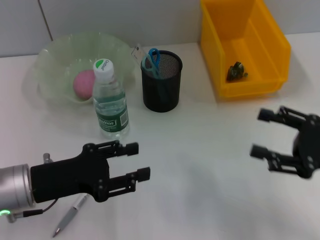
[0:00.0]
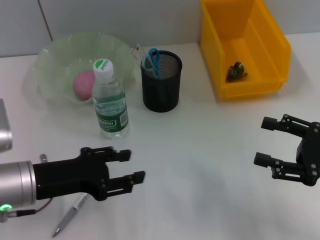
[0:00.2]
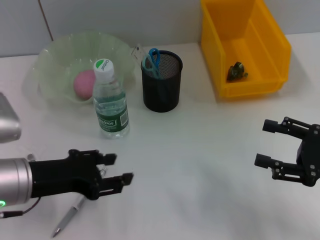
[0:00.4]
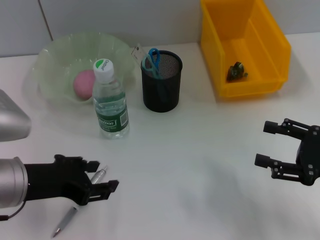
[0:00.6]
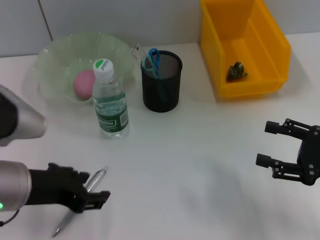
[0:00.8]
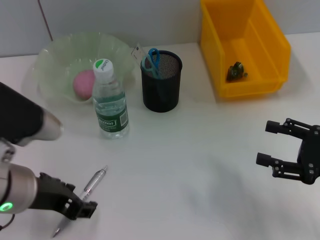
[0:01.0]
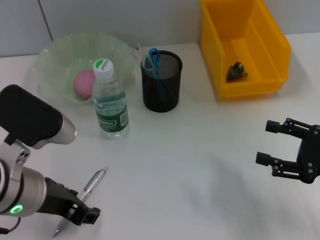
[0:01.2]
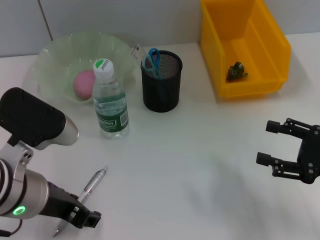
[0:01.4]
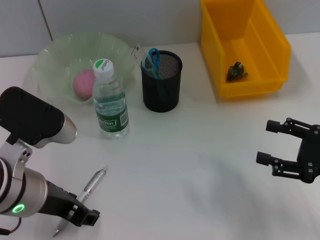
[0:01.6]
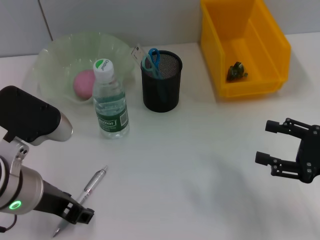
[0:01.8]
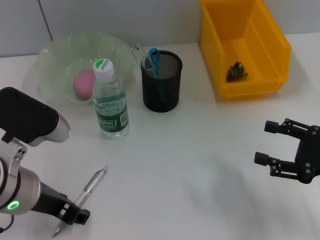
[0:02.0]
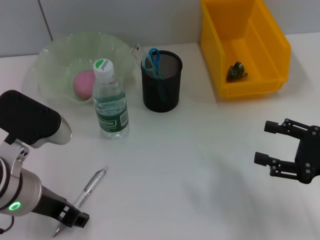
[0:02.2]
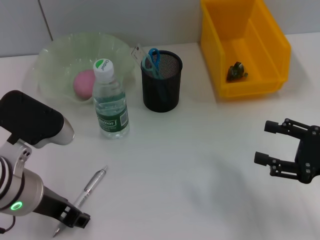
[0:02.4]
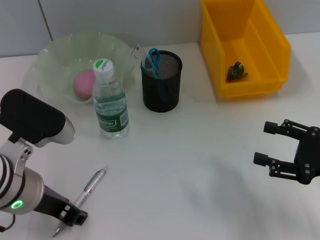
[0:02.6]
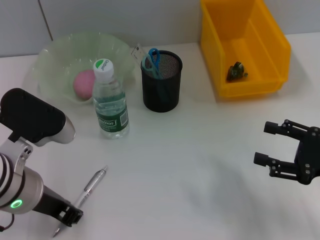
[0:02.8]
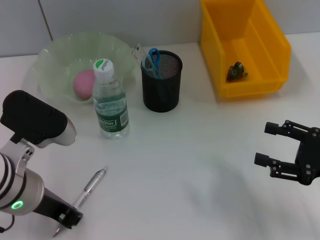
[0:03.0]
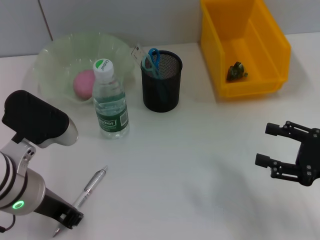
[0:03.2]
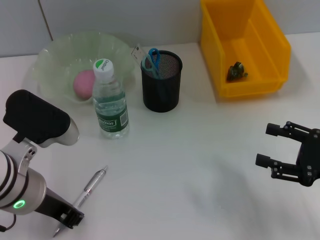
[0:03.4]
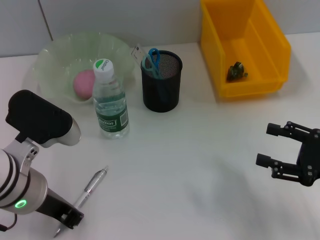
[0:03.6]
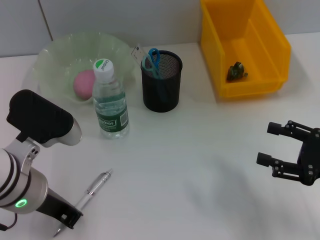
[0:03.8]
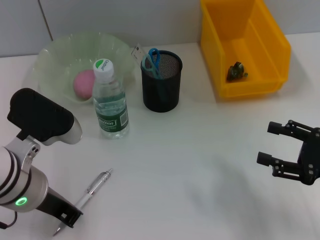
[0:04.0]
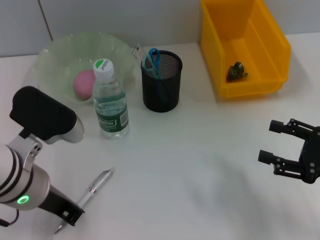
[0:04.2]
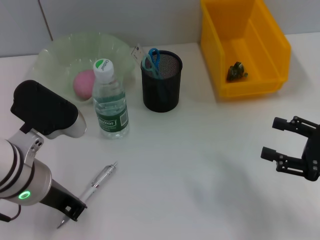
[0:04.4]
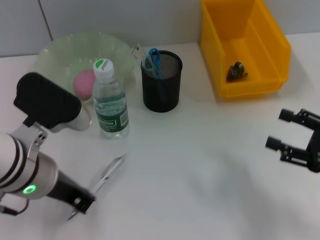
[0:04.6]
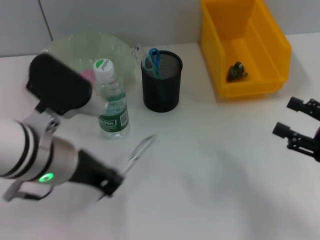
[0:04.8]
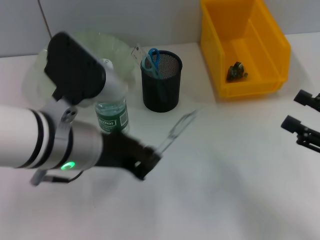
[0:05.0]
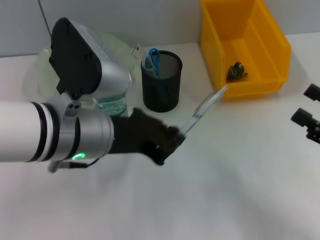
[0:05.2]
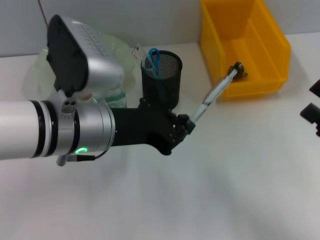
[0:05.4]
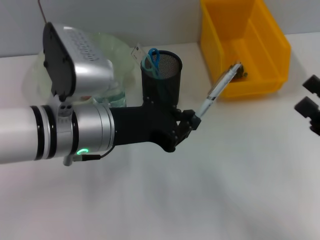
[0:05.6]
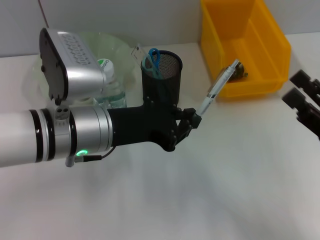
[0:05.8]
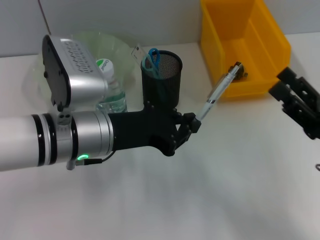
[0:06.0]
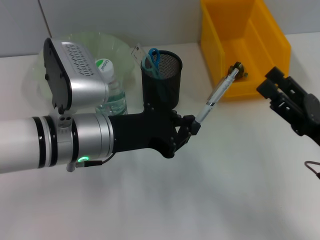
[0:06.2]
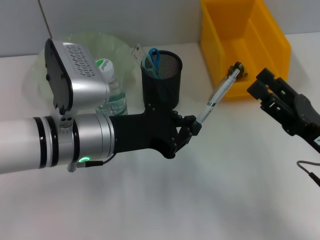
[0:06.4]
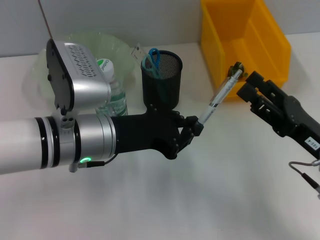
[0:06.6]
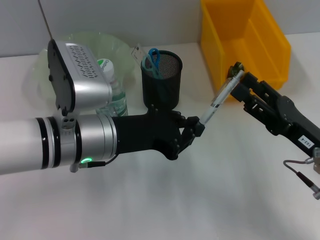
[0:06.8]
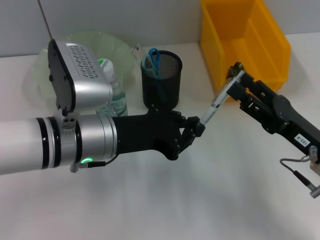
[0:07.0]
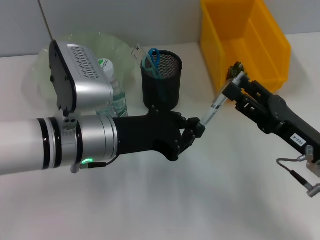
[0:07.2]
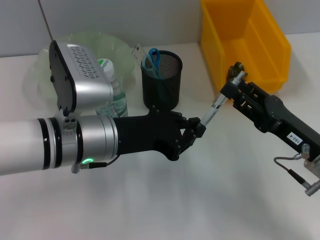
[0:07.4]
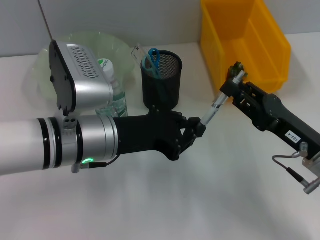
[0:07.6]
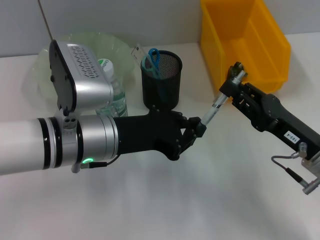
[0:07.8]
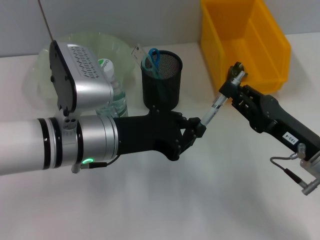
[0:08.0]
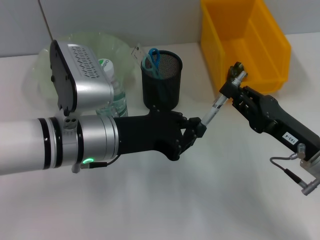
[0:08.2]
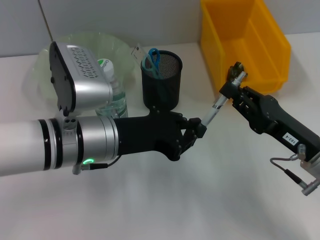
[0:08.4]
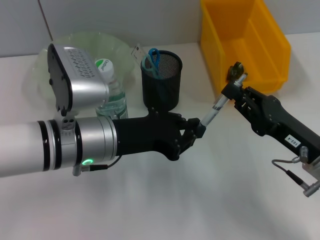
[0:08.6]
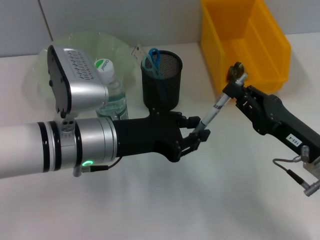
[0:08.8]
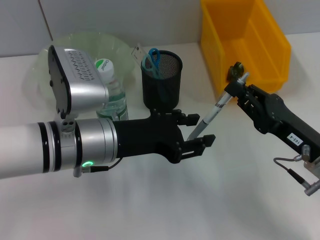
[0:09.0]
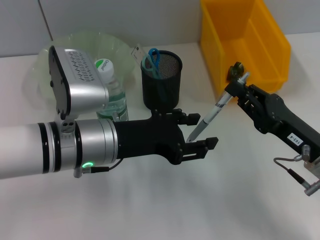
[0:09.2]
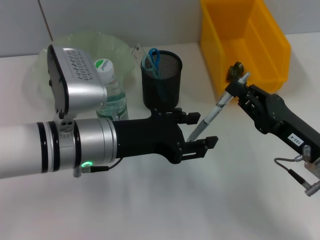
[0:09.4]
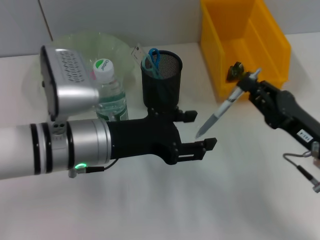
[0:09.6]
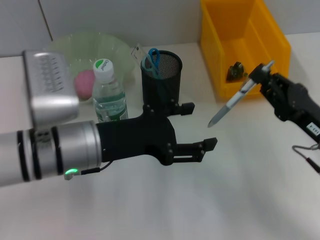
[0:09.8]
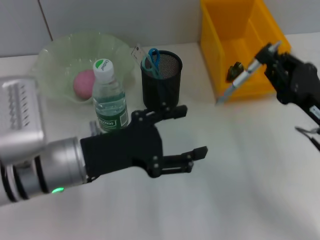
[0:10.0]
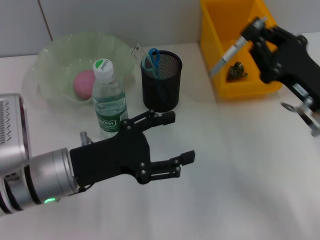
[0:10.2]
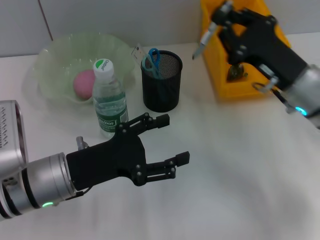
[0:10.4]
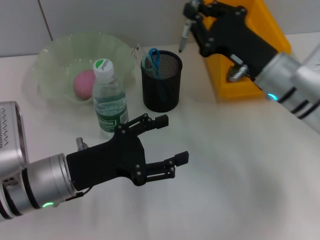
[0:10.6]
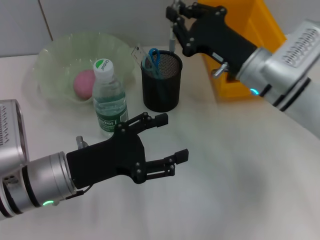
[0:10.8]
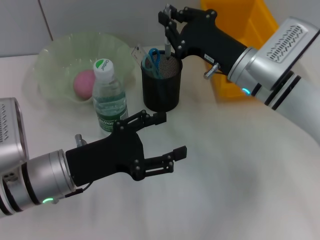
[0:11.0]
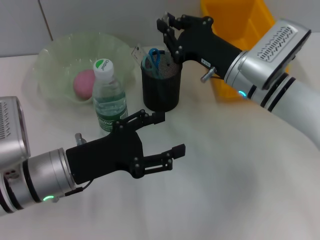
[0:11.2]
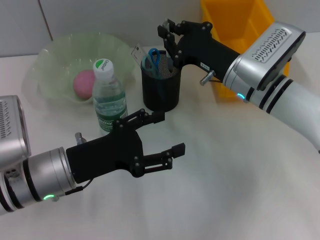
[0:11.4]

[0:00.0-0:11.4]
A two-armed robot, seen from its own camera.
Step, 0.0 to 4.2 s: Grab the gray spring-action pen with the left hand.
Step, 4.4 to 8.8 s: Pass the gray spring-action pen from the left hand to the right hand.
0.0 to 1.4 s: The left gripper shifts approximately 10 cm upward and to the right.
1.4 to 2.8 s: The grippers make only small movements.
2.8 to 4.2 s: The left gripper closes its fingers.
4.2 to 5.6 s: The left gripper moves to the right, about 5 cm.
5.6 to 7.2 s: The right gripper travels to the left by some 5 cm.
7.2 to 8.6 s: The right gripper closes.
8.6 to 10.0 s: The left gripper opens up.
10.0 to 11.4 s: The right gripper is displaced forward and to the left by some 15 cm.

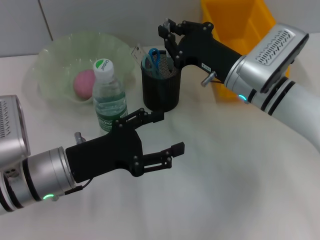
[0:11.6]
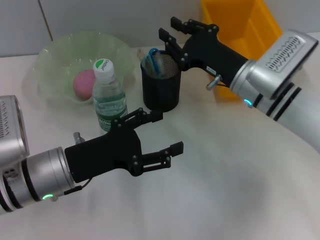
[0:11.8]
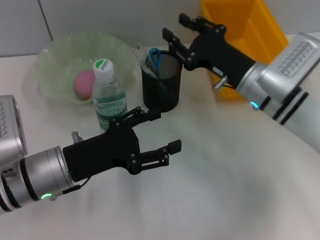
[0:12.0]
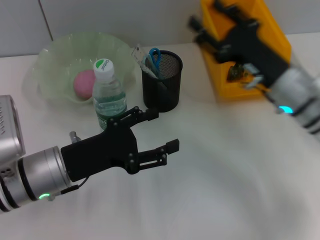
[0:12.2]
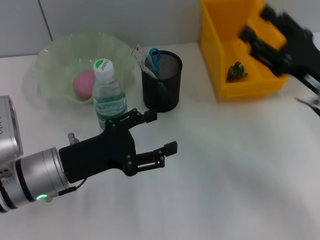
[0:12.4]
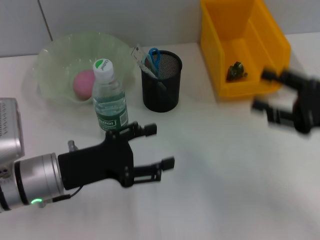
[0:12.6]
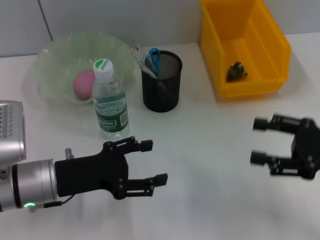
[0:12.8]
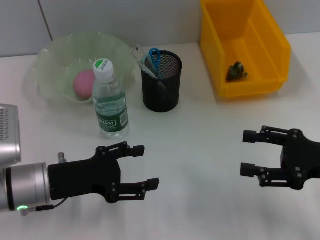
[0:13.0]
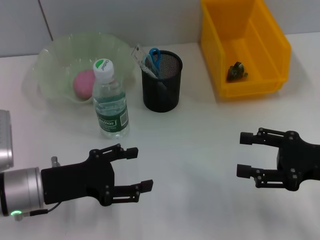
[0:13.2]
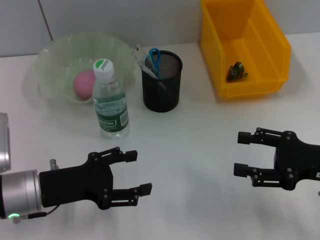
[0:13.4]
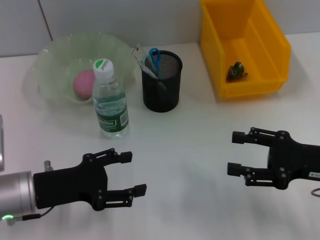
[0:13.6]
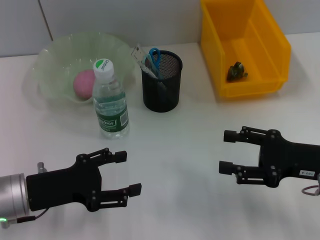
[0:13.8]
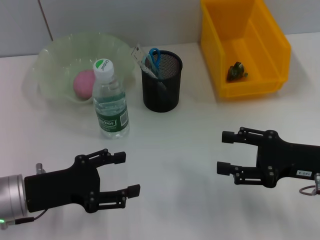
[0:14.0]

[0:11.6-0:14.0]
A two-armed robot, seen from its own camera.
11.6 to 12.8 s: The right gripper moves to the right and backward, about 20 cm, and opens.
12.8 to 14.0 s: There are only small adjustments of the grippers.

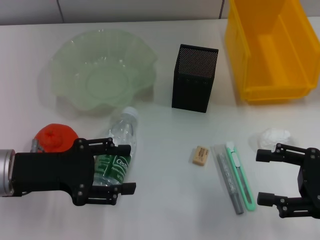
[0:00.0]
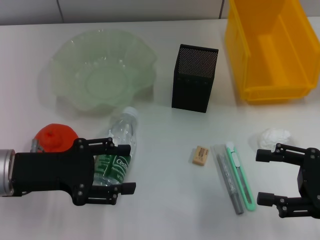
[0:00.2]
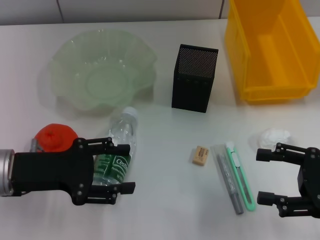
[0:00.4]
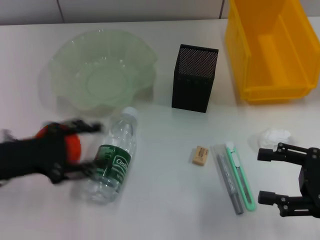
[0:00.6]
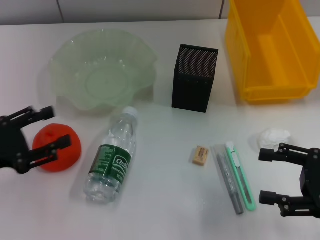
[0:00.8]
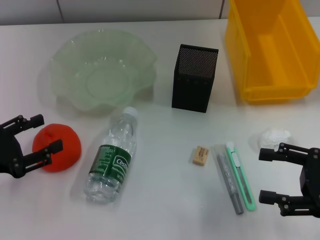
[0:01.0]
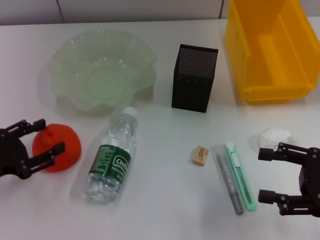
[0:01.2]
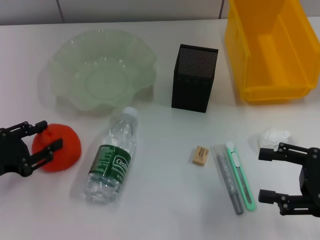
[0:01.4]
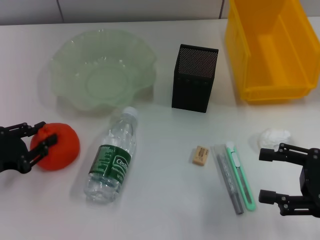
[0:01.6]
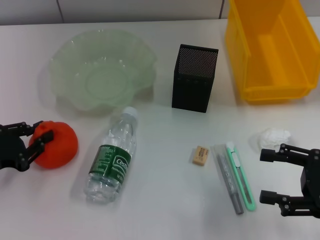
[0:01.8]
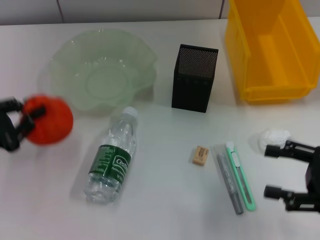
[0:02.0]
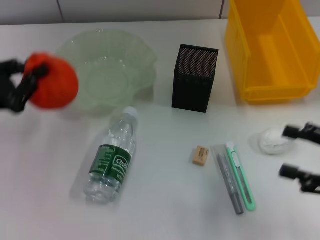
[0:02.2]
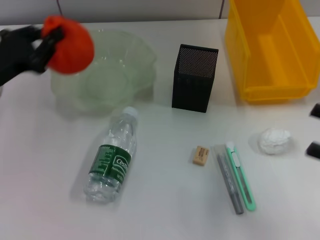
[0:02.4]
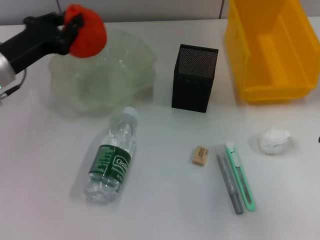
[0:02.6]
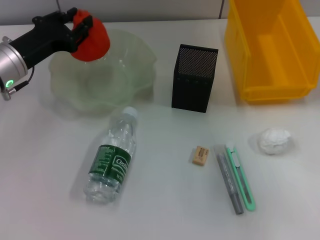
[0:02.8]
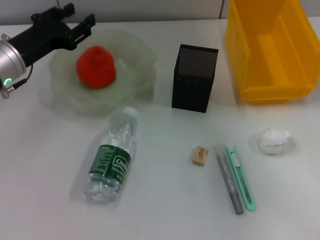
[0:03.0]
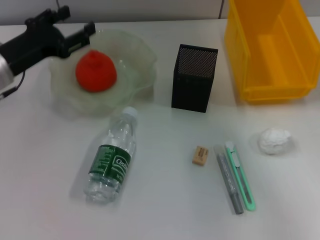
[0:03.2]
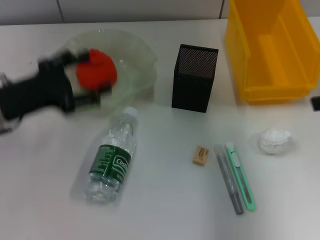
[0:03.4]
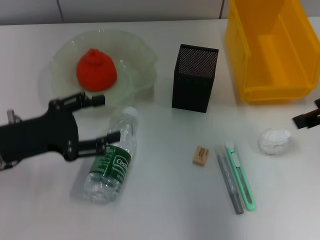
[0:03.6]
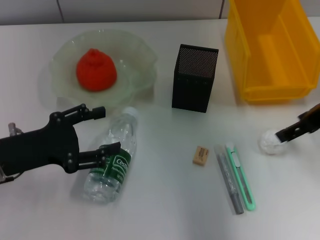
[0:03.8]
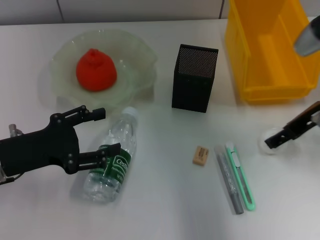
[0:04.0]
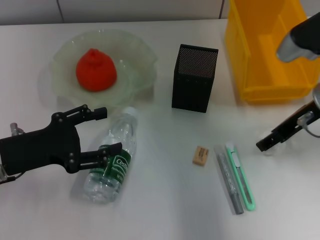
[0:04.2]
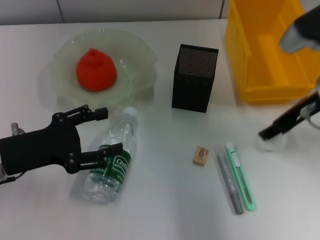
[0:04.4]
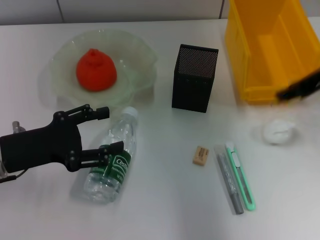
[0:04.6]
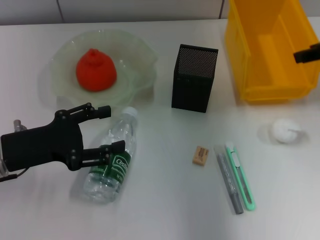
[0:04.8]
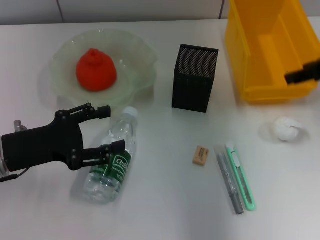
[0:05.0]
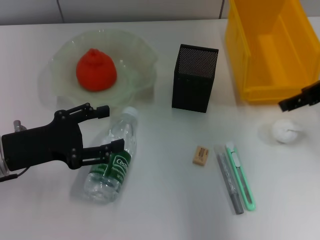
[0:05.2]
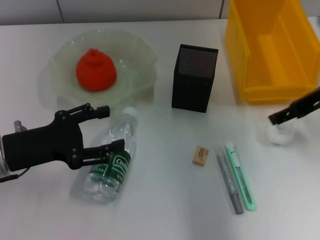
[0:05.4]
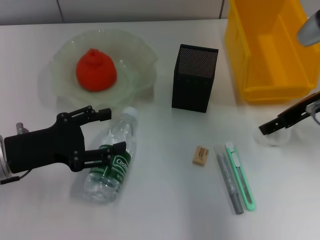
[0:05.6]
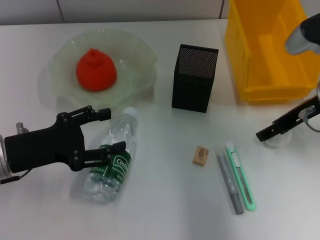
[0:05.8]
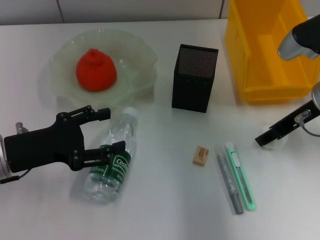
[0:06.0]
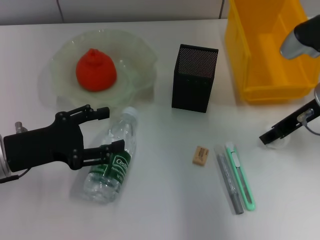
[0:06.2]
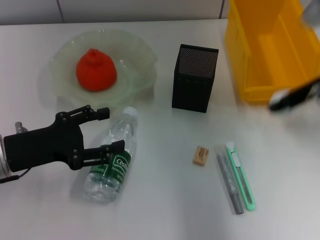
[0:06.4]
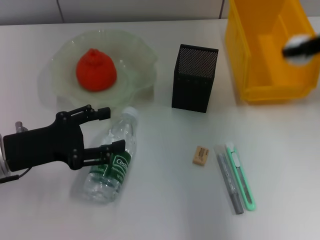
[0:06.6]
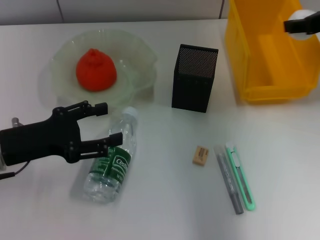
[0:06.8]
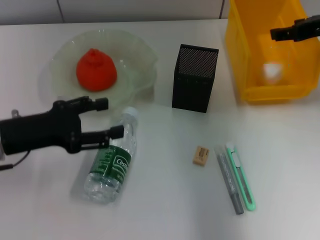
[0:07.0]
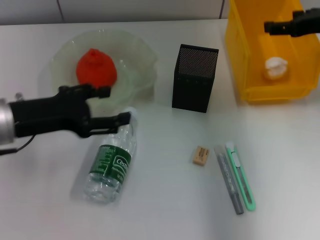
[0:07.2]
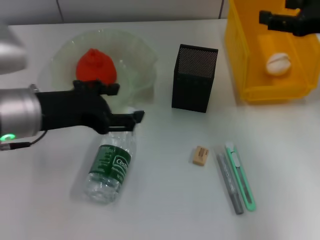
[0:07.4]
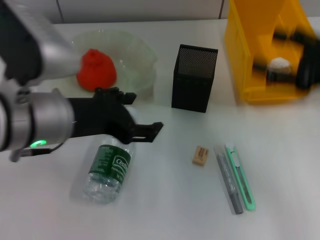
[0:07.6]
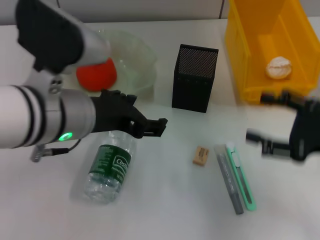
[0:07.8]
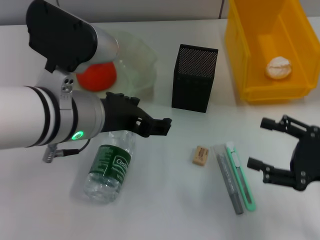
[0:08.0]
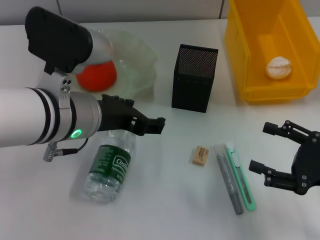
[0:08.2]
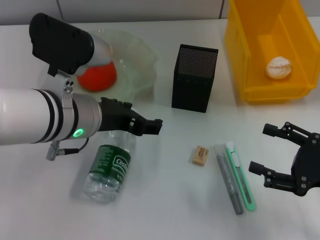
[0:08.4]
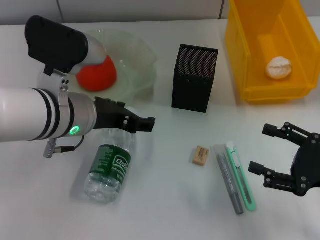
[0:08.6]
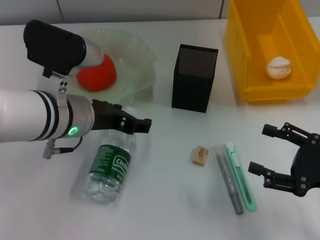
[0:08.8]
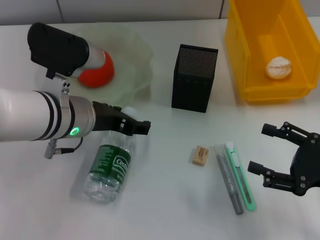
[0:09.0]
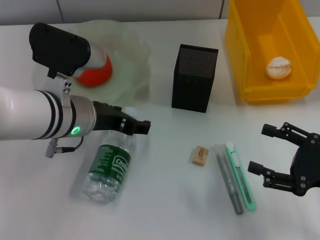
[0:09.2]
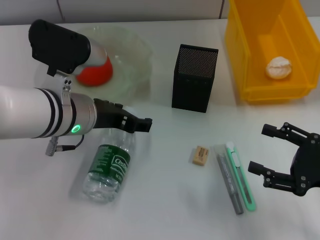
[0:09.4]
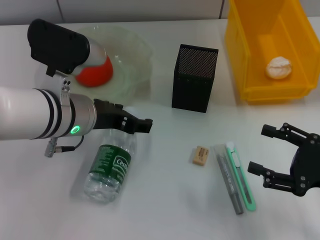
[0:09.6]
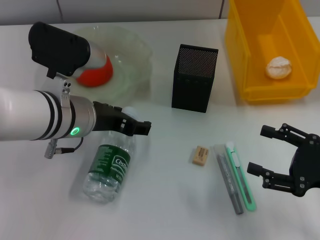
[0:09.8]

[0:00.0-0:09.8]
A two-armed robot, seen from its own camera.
Step, 0.0 to 1.6 s: Grab the orange with the left hand.
Step, 1.8 to 3.0 s: Place the orange into the fruit bowl with the left hand.
Step, 3.2 to 6.0 s: Grab the paper ball with the right hand.
Step, 6.2 to 7.0 s: Place the paper ball into the trash can with the right hand.
0.0 to 1.4 s: The left gripper shifts roughly 10 cm to the left.
1.4 to 2.8 s: The left gripper shifts roughly 15 cm forward and to the right, and closes. Meanwhile the right gripper shifts some 10 cm upward and to the right.
2.8 to 4.2 s: The right gripper is displaced to the left and forward by some 20 cm; the left gripper moves backward, some 15 cm, and opens its fingers.
4.2 to 5.6 s: The right gripper moves roughly 10 cm upward and comes back, and closes, then opens again.
5.6 to 7.0 s: The right gripper changes place by some 5 cm, and closes.
7.0 to 8.4 s: The left gripper goes about 15 cm to the right. Meanwhile the right gripper is displaced backward and downward by roughly 25 cm, and opens its fingers.
8.4 to 9.8 s: There are only small adjustments of the grippers.
